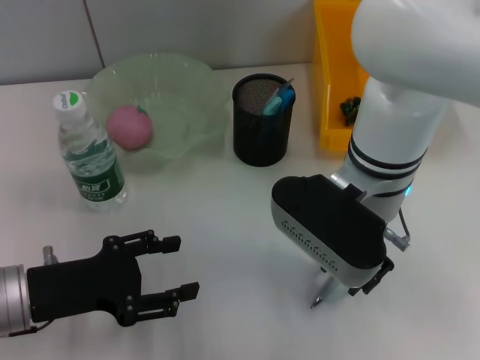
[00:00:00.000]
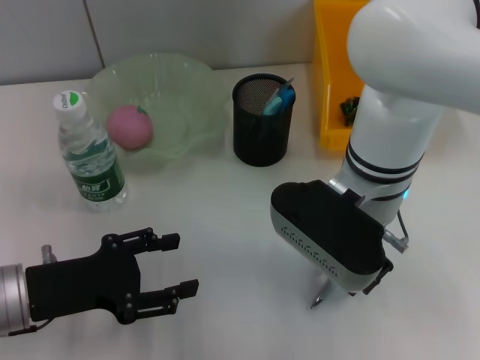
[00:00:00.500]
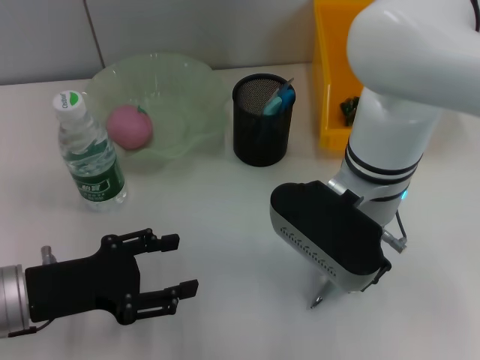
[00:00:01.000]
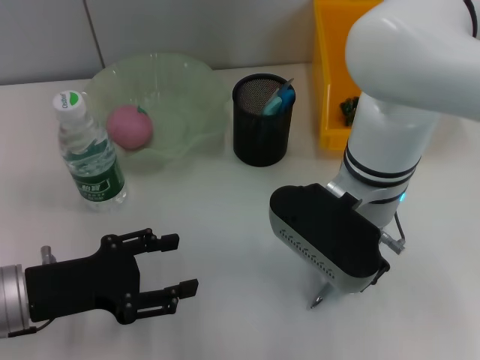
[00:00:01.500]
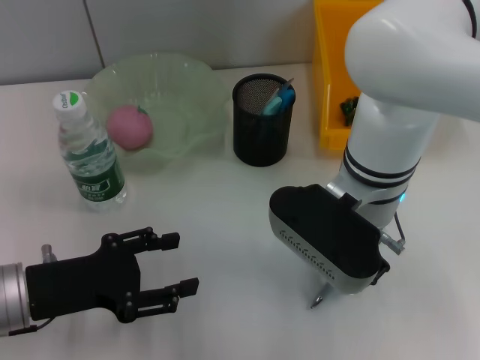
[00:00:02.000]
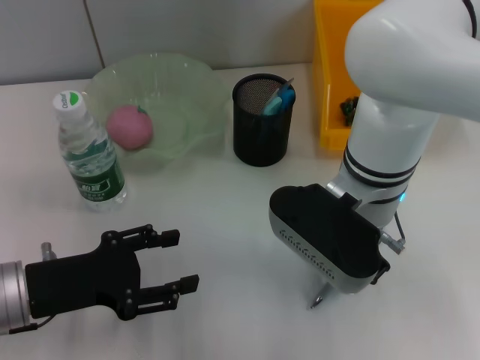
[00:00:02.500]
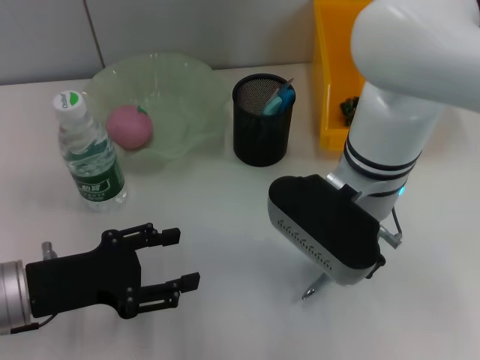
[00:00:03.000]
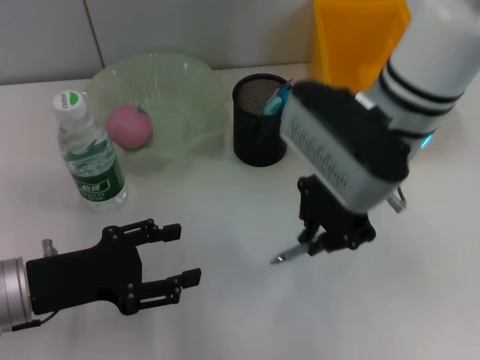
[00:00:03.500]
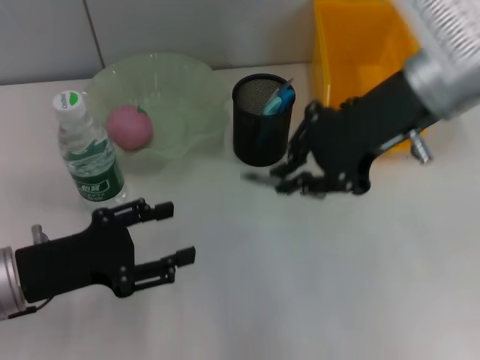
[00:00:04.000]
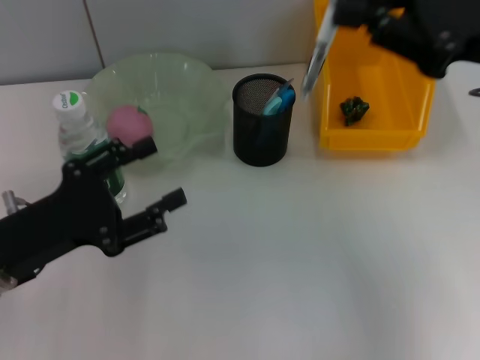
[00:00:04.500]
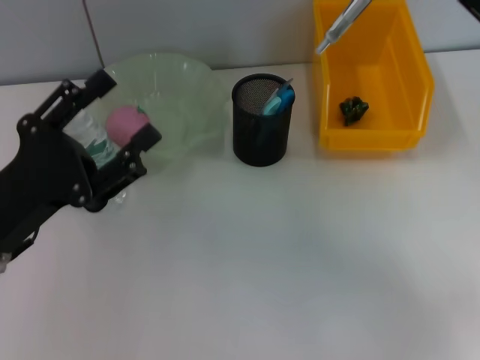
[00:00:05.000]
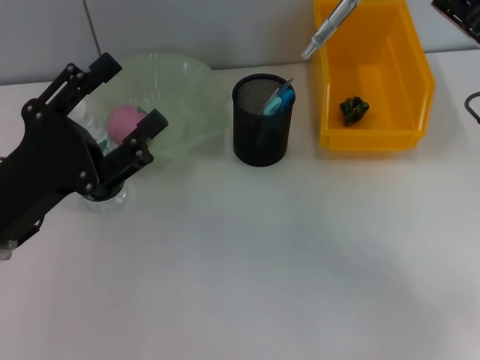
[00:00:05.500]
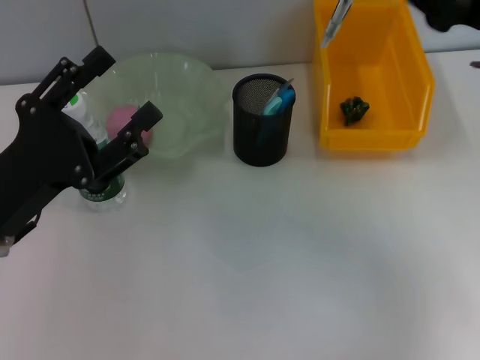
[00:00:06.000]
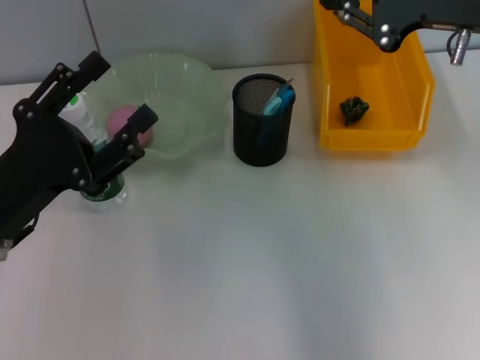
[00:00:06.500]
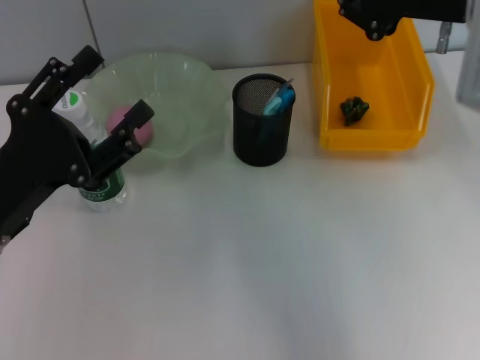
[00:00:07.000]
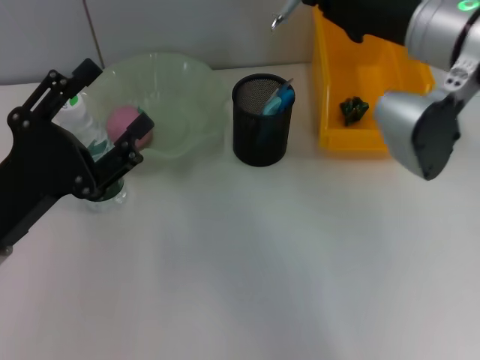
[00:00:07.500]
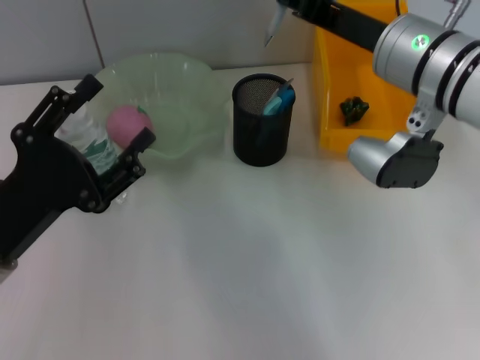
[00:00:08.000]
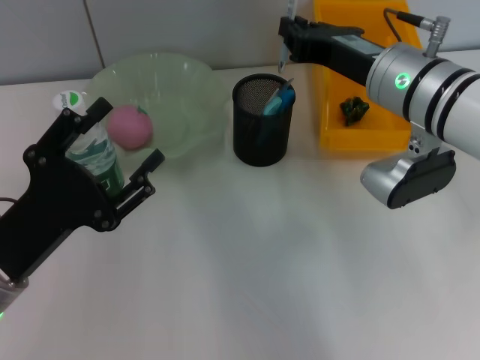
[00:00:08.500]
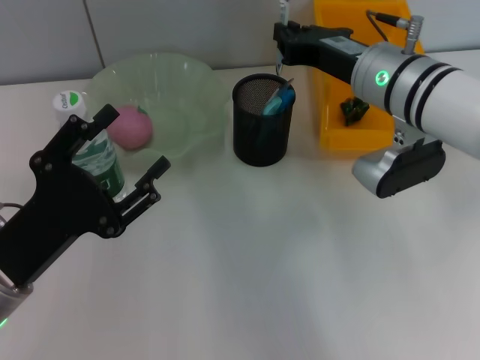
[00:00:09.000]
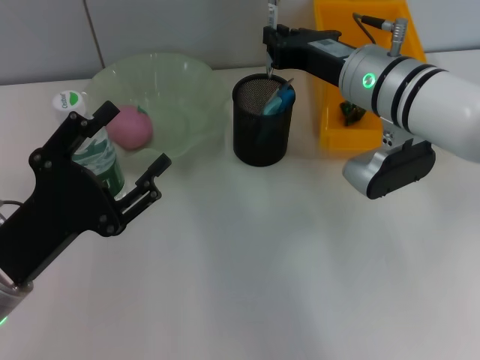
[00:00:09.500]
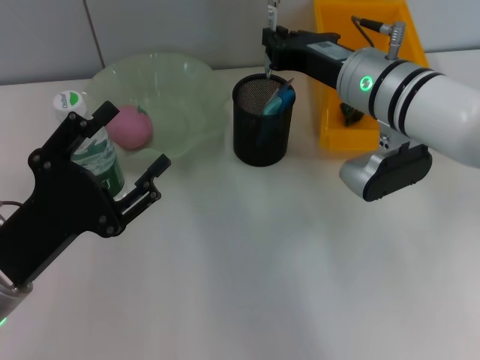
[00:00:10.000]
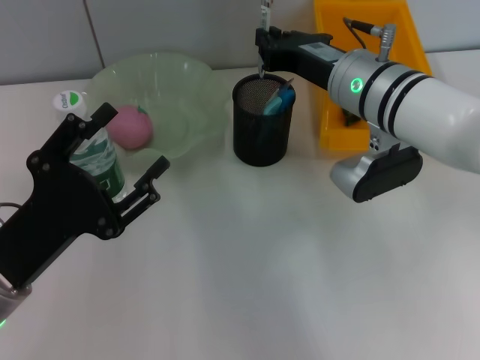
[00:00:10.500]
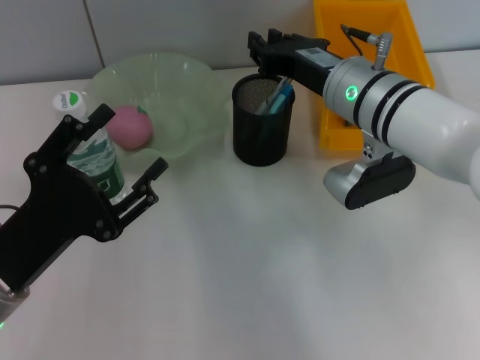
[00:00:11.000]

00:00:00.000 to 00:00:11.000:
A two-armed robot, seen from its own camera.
Step, 00:00:00.000 to 00:00:02.500: Grab the gray spring-action pen with the right hand.
00:00:00.000 to 00:00:02.000: Both grippers stay put.
00:00:02.000 to 00:00:03.500: The right gripper heads upward, covering about 5 cm.
00:00:03.500 to 00:00:05.500: The right gripper is displaced to the right by approximately 15 cm.
00:00:05.500 to 00:00:07.500: The right gripper is displaced to the left by approximately 10 cm.
00:00:07.500 to 00:00:09.000: The right gripper is displaced downward by roughly 5 cm.
00:00:09.000 to 00:00:11.000: There are only small adjustments of the grippers.

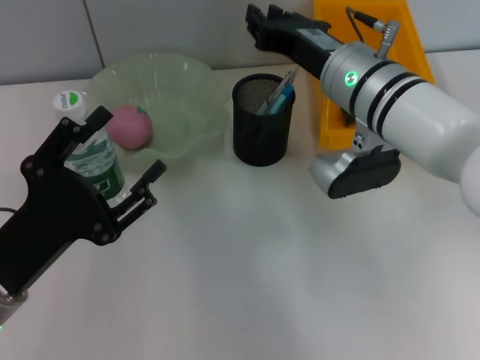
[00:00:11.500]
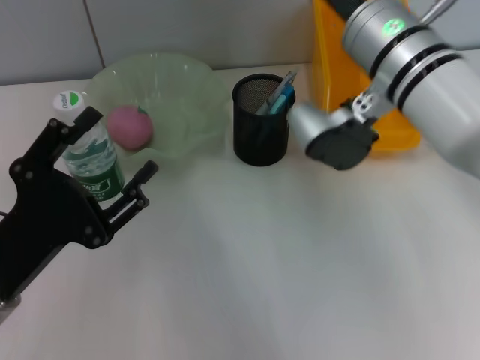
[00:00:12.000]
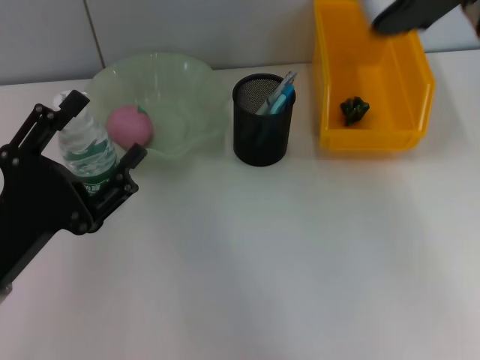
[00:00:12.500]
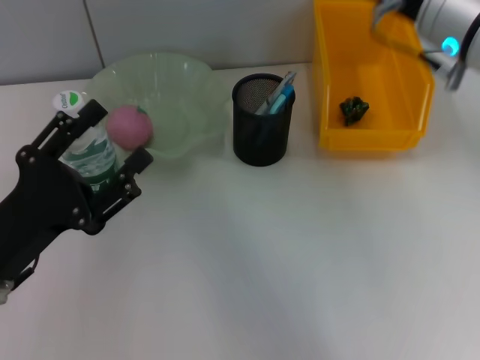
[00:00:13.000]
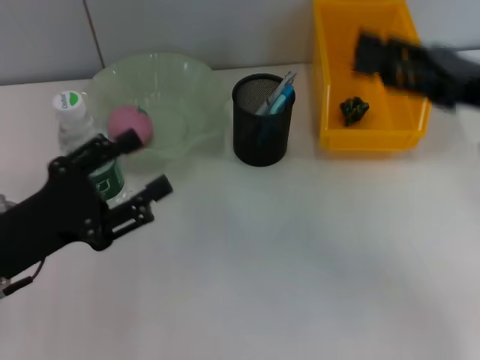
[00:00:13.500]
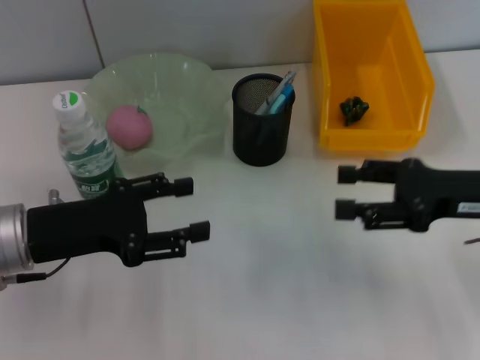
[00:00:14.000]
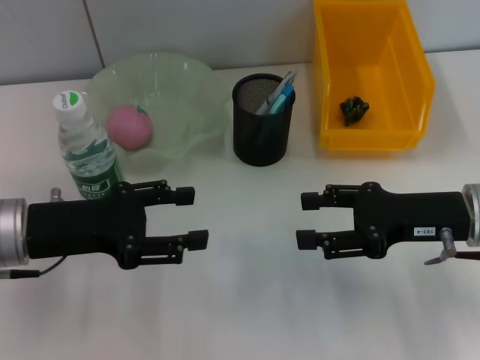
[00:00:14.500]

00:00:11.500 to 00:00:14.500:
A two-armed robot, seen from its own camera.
00:00:11.500 to 00:00:13.000: The right gripper heads upward and to the right, covering approximately 10 cm, and opens its fingers.
00:00:13.000 to 00:00:14.500: The right gripper goes some 15 cm downward, to the right and backward. The left gripper is displaced forward by approximately 5 cm.

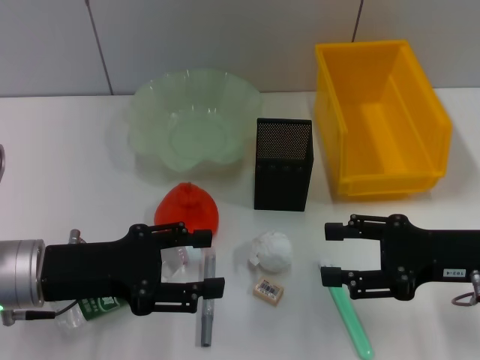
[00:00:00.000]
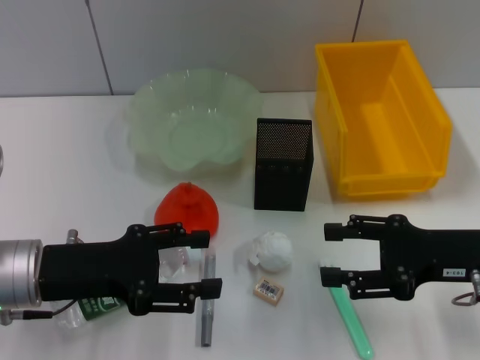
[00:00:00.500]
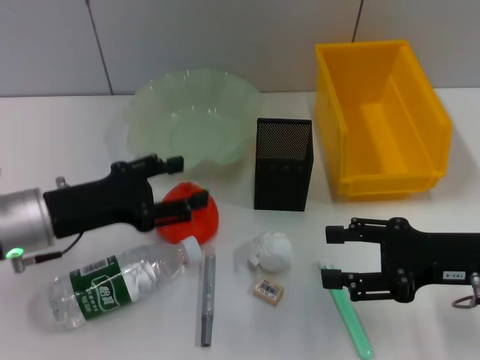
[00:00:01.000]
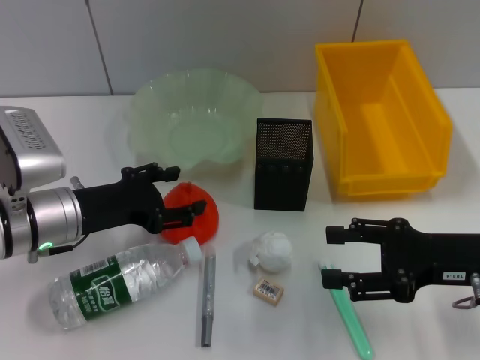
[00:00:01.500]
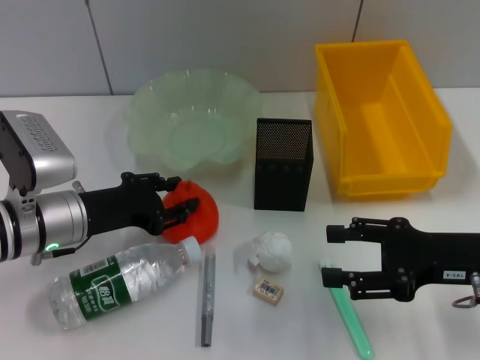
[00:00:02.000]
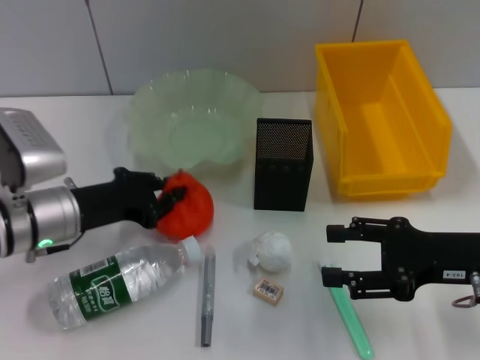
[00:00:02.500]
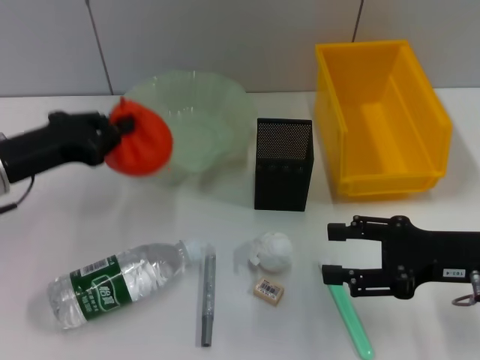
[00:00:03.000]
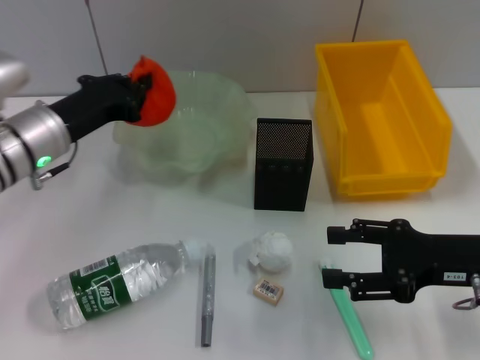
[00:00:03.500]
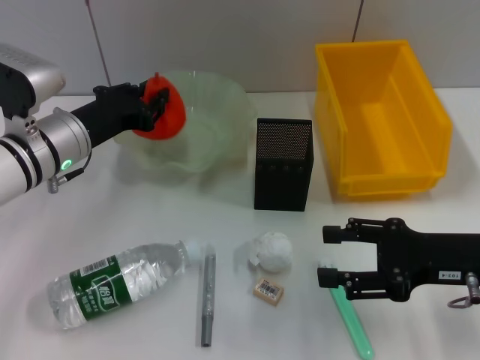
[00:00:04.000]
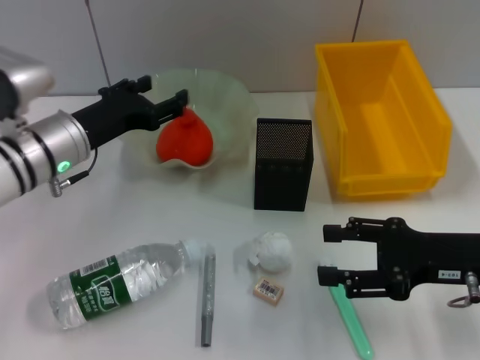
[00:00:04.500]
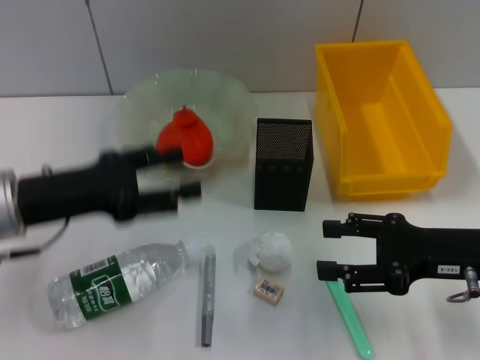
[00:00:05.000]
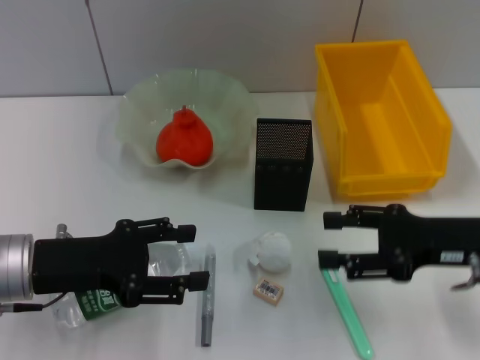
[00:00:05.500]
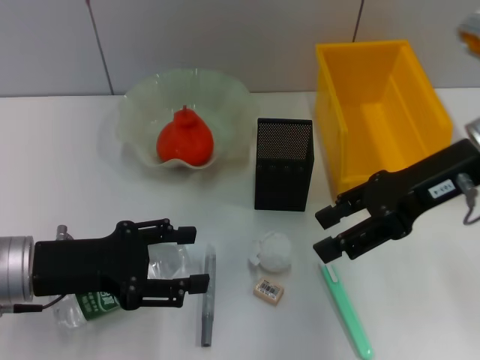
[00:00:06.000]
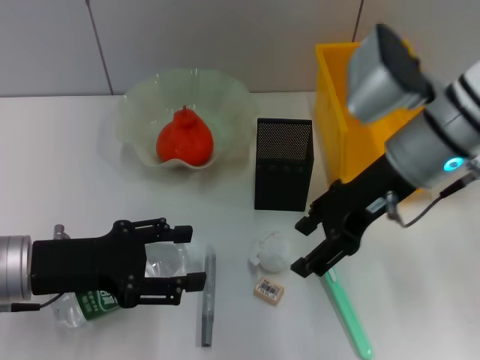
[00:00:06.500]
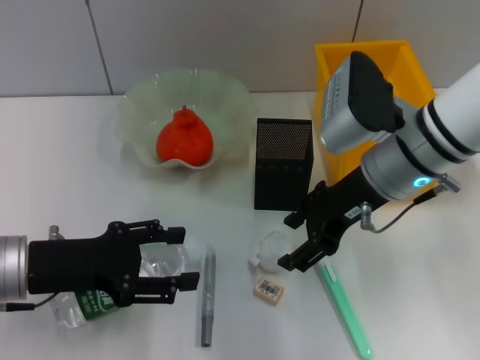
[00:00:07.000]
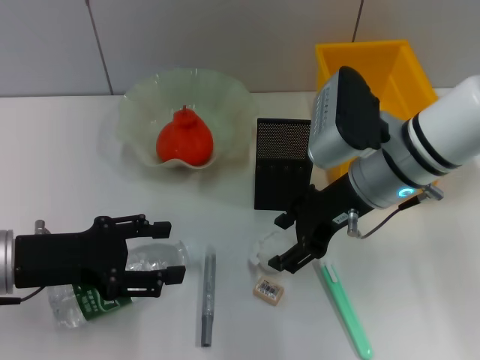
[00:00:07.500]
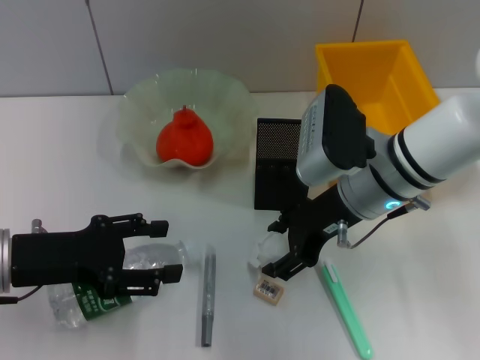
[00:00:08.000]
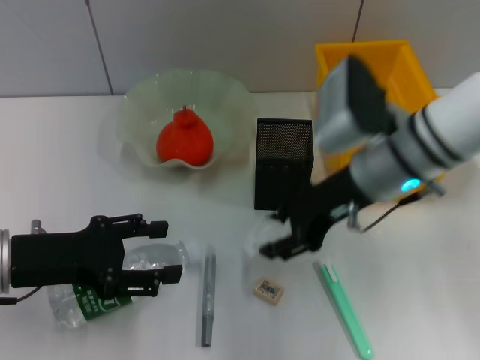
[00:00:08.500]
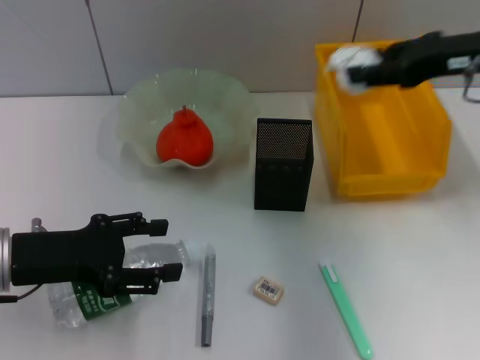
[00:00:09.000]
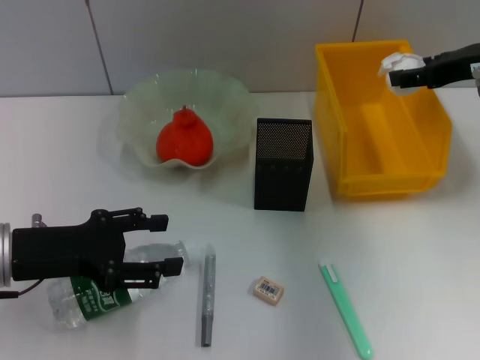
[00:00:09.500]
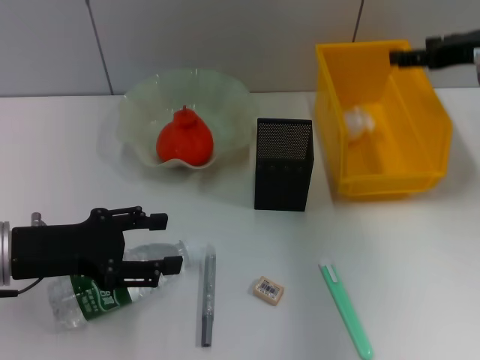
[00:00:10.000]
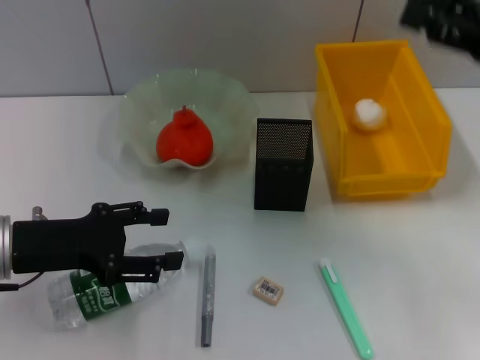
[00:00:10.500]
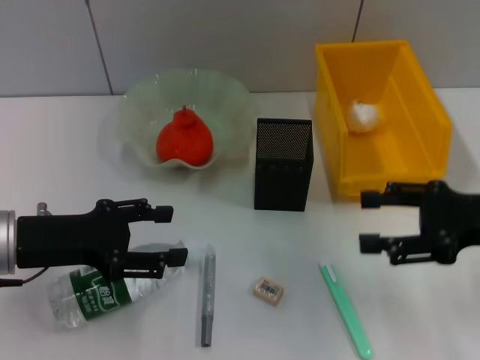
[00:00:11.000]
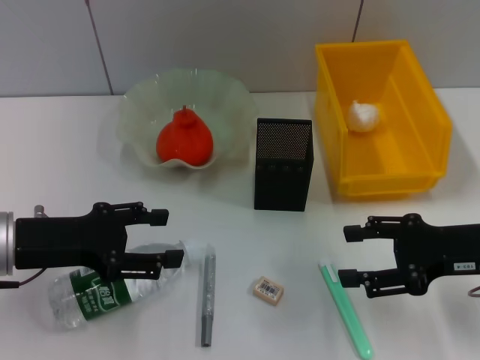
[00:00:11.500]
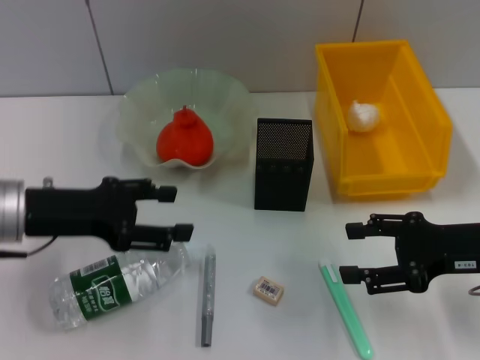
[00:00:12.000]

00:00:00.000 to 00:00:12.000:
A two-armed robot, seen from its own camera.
Step, 00:00:00.000 to 00:00:02.000: Grab the orange with the left hand.
Step, 00:00:02.500 to 00:00:04.000: Place the orange into the fruit bowl with the left hand.
Step, 00:00:04.500 to 00:00:08.000: Grab the paper ball with the right hand.
Step, 00:00:08.500 to 00:00:09.500: Place the paper ball into the trash can with the right hand.
00:00:00.000 to 00:00:02.000: The left gripper is displaced forward by some 5 cm.
00:00:02.000 to 00:00:04.000: The left gripper is displaced forward by approximately 5 cm, and closes up.
00:00:04.000 to 00:00:06.000: The right gripper shifts approximately 15 cm upward and forward; the left gripper shifts approximately 10 cm backward, and opens up.
00:00:06.000 to 00:00:08.000: The right gripper goes roughly 10 cm to the left and downward.
00:00:08.000 to 00:00:10.000: The right gripper travels to the right and upward by about 20 cm.
00:00:10.000 to 00:00:12.000: The right gripper is displaced backward and downward by roughly 15 cm.
